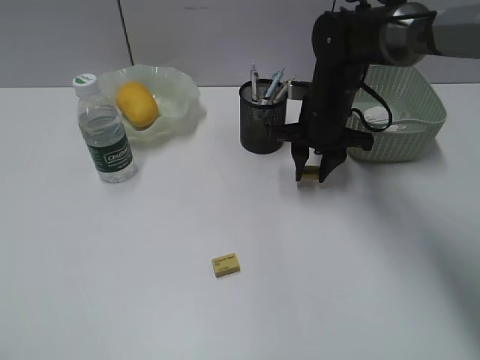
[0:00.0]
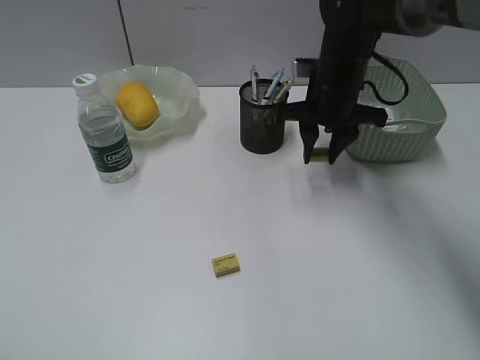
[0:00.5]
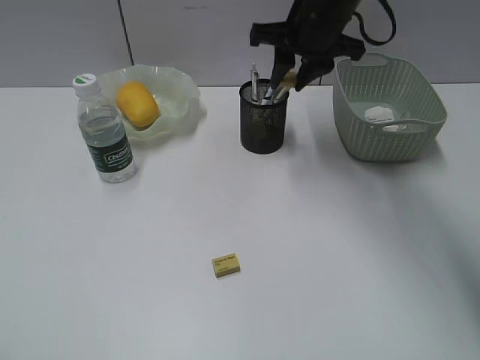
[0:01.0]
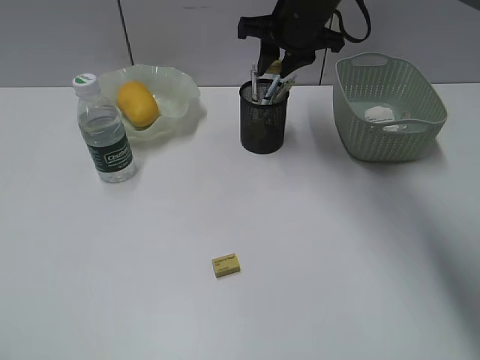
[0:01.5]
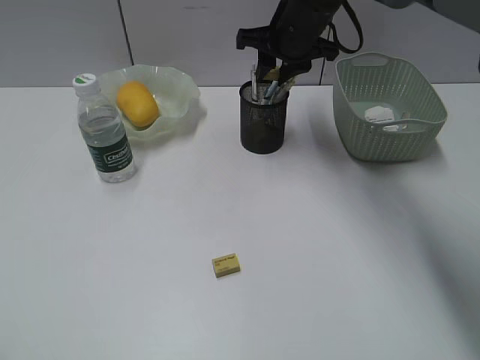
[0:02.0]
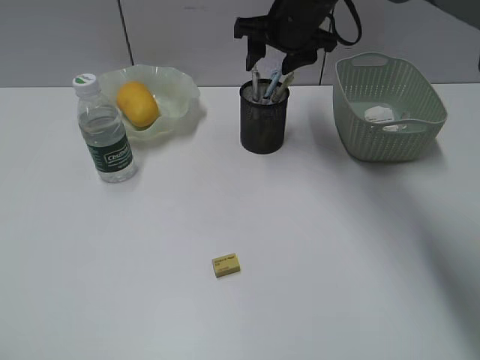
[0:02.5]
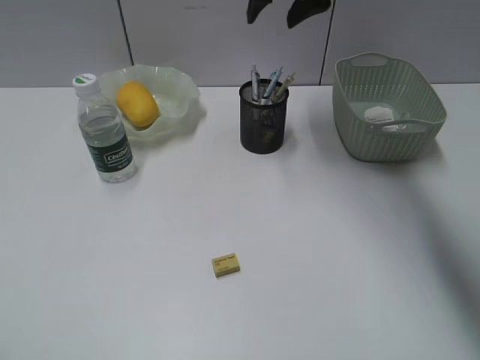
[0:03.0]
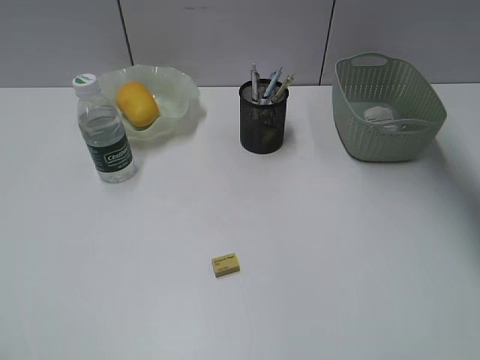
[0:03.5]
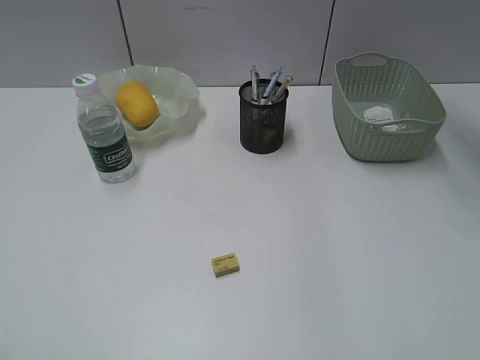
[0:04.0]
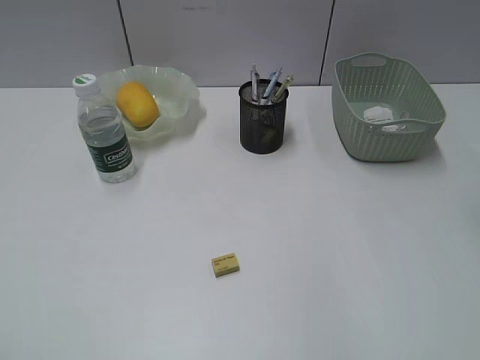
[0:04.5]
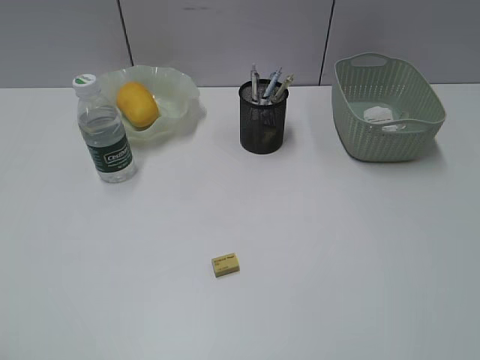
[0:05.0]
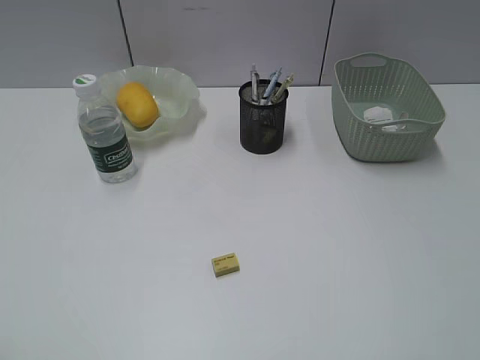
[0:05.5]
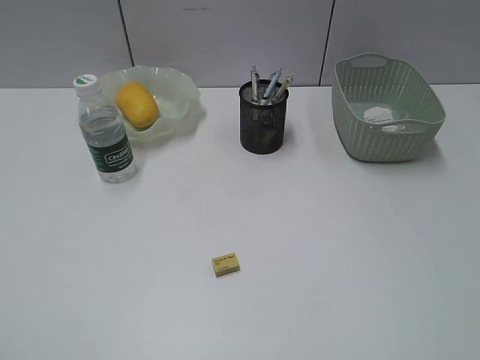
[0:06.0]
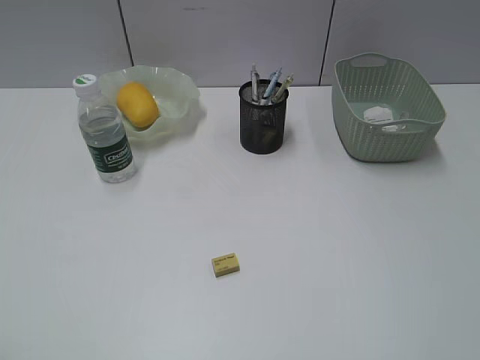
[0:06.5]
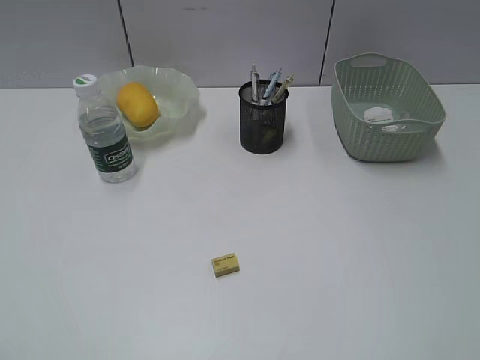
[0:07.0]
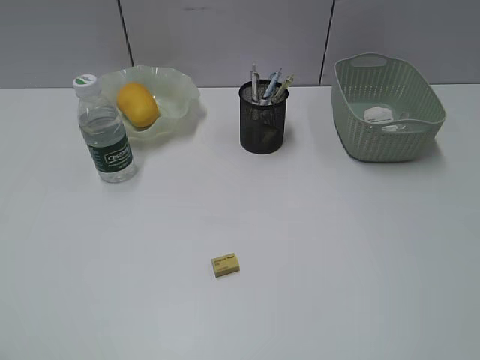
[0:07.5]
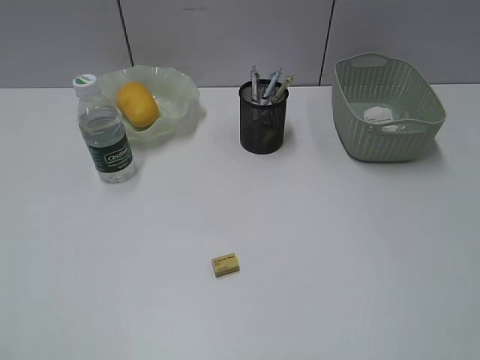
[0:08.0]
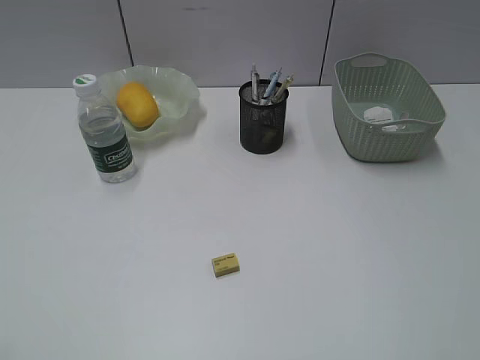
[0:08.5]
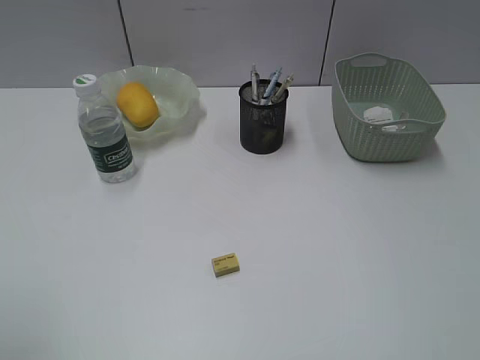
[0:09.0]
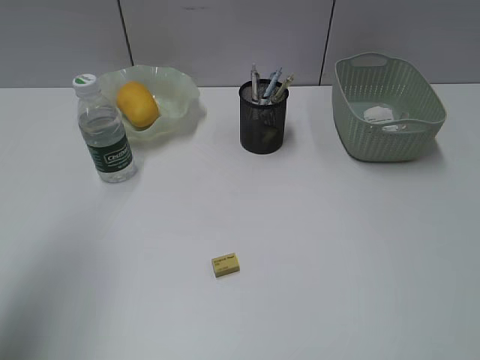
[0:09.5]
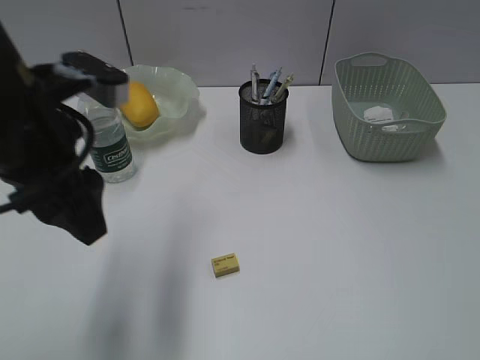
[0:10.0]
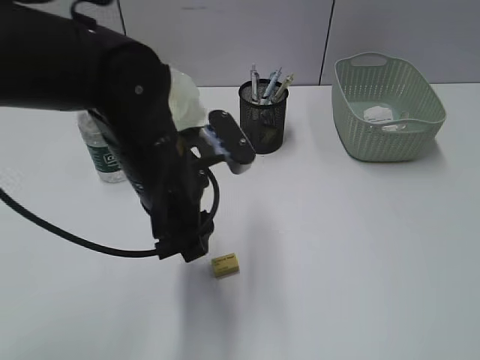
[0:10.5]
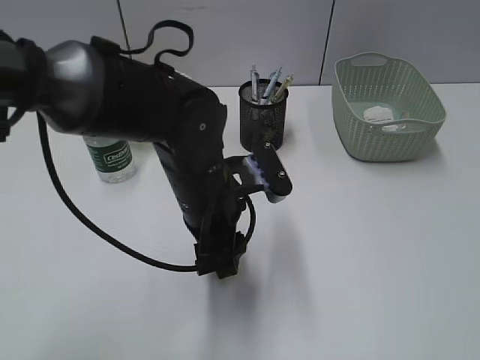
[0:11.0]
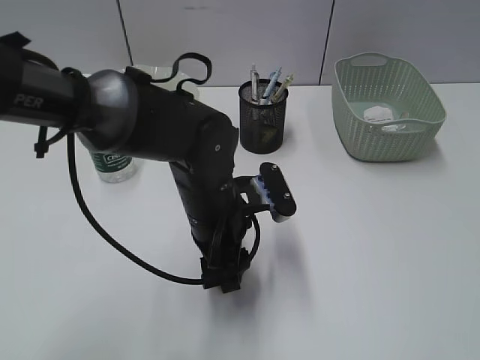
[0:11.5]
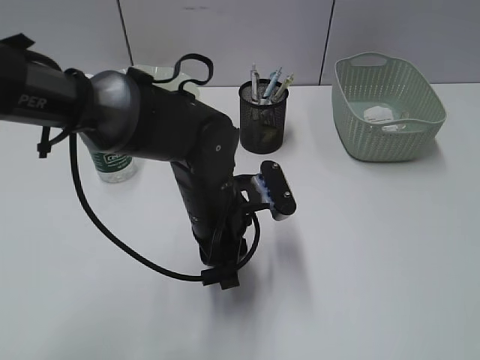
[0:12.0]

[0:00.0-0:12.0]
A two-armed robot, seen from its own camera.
Step, 0:00.0 to 0:02.0: Place the eraser in pen holder with right gripper.
0:00.0 to 0:02.0: The right gripper goes some 10 cm upward and forward.
0:02.0 to 0:04.0: The right gripper heads to the right and upward, covering about 25 cm.
0:04.0 to 0:06.0: The right gripper shifts roughly 50 cm backward.
0:08.0 to 0:10.0: The left gripper goes roughly 30 cm forward and to the right.
0:10.0 to 0:12.0: The left gripper moves downward and to the right, about 20 cm, and closes up.

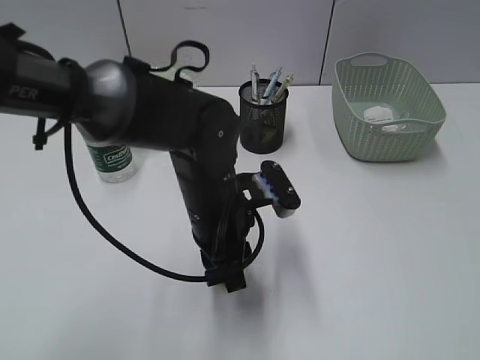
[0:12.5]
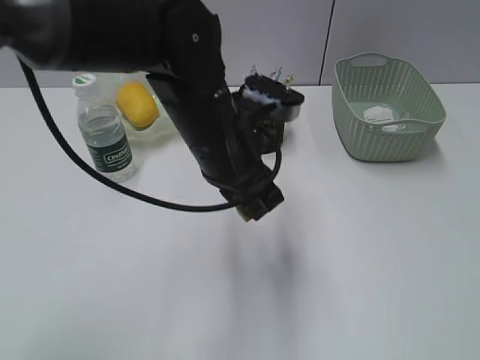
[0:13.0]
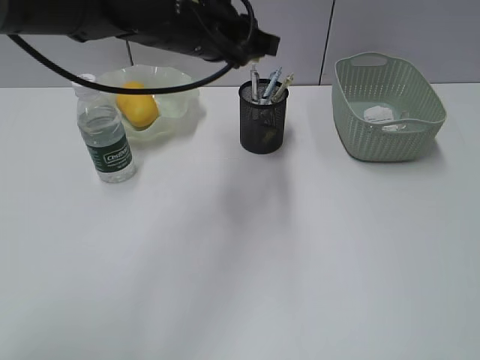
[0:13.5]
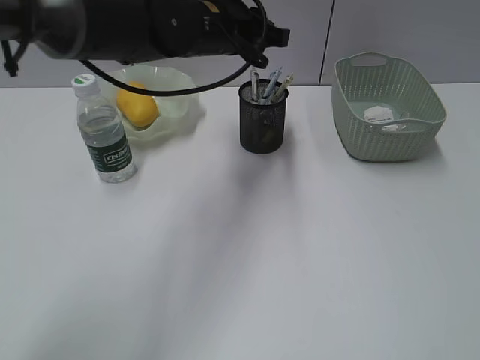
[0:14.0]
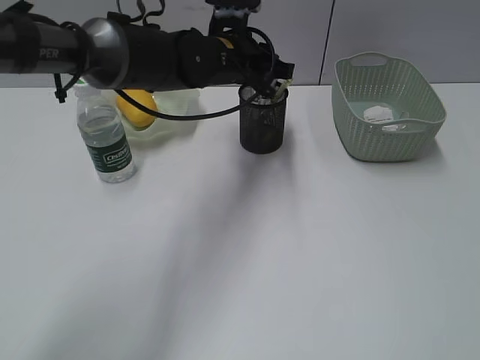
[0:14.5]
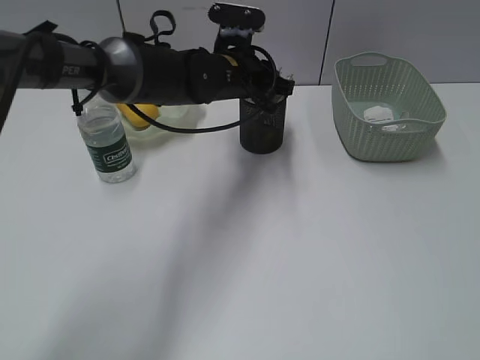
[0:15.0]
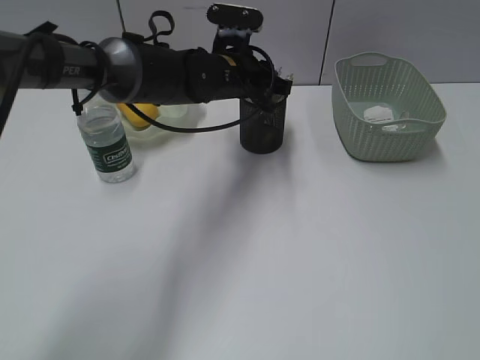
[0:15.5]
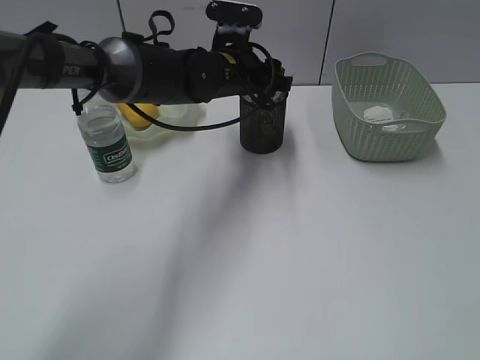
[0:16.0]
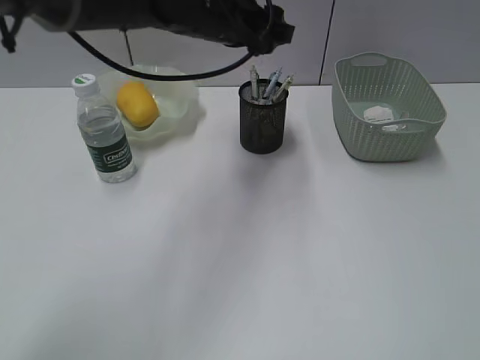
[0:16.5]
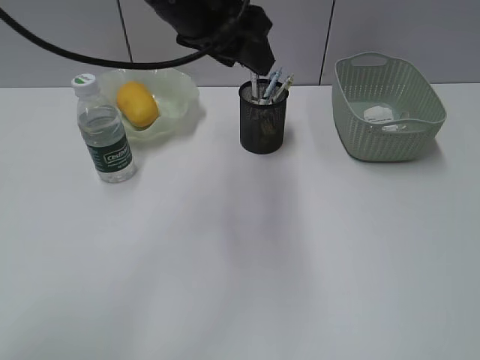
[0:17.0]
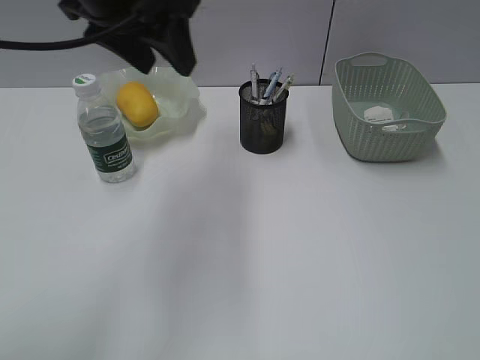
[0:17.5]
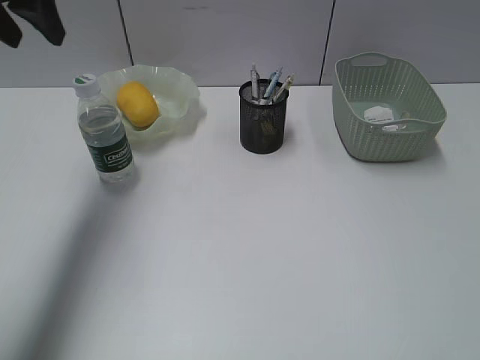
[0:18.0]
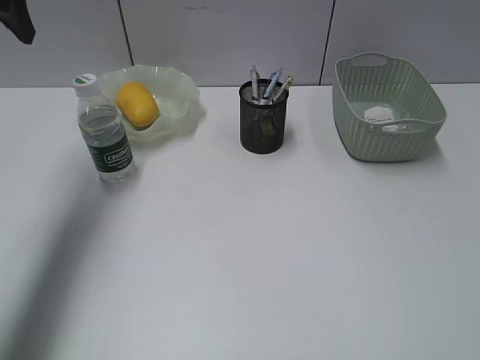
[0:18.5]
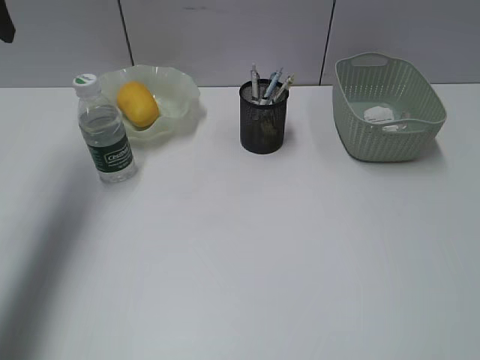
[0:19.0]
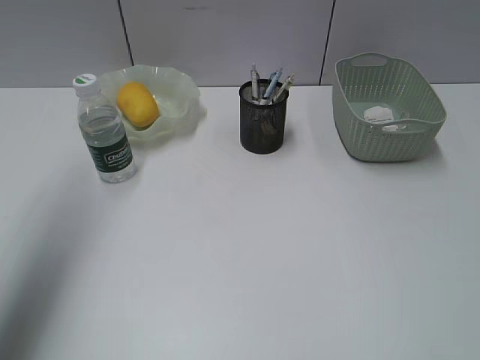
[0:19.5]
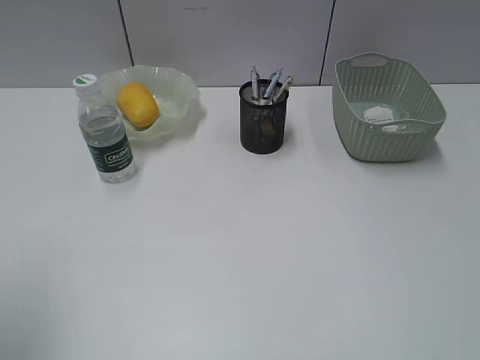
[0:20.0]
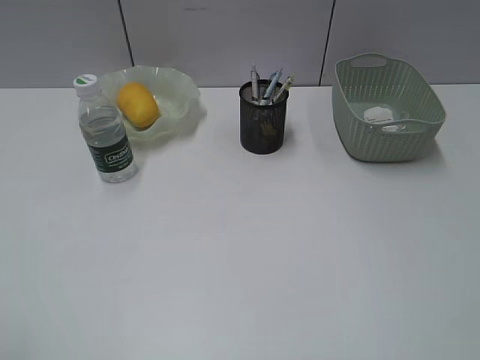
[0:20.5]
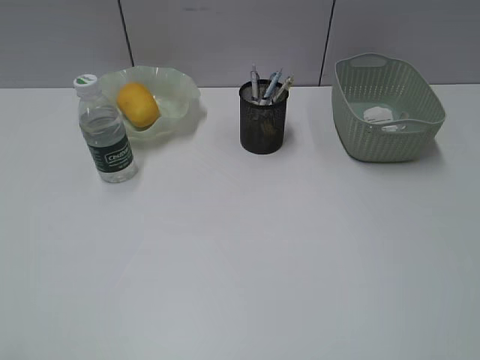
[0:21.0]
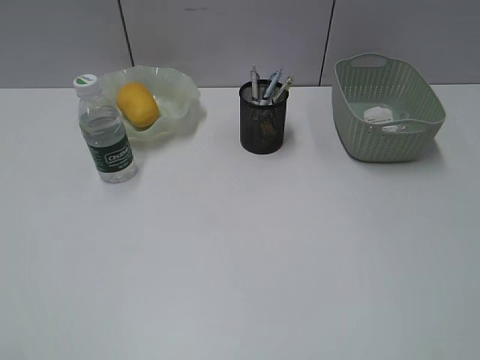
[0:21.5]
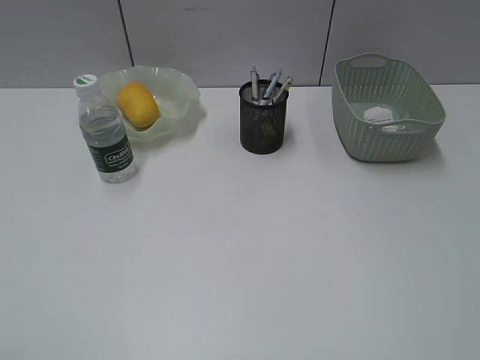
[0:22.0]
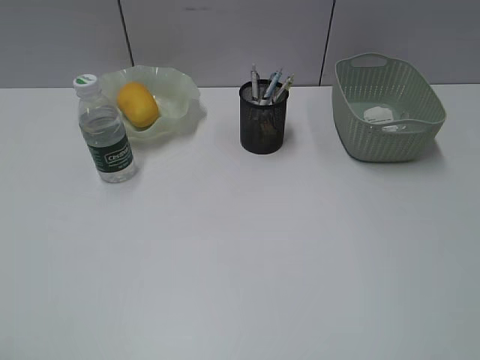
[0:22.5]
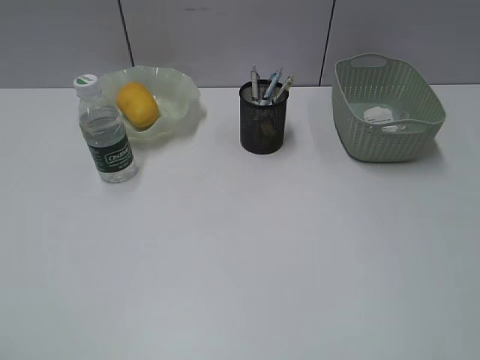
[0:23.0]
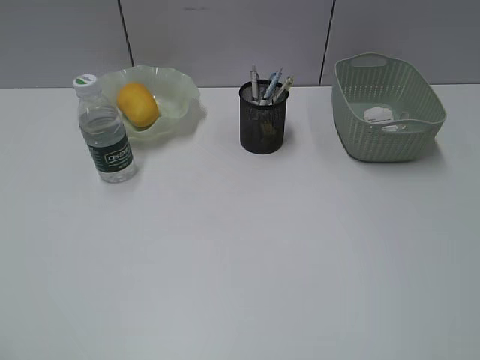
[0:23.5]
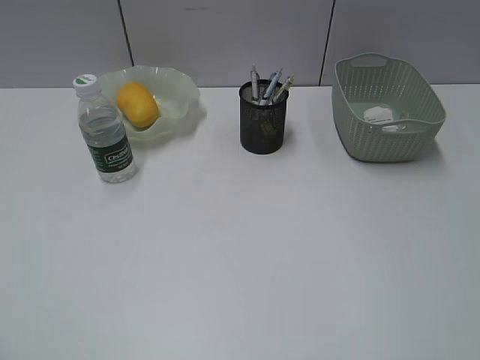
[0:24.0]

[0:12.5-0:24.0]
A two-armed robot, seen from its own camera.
Step, 0:12.5 to 0:16.0: Place the eraser in pen holder with left gripper.
0:12.5 to 0:14.5: The left gripper shifts approximately 20 cm forward and upward.
0:14.5 to 0:16.5: The left gripper is displaced upward by about 5 cm, and opens.
0:16.5 to 0:18.5: The left gripper travels to the left and upward by approximately 25 cm.
0:18.5 to 0:20.0: The left gripper is displaced backward by roughly 25 cm.
0:22.0 to 0:24.0: Both grippers stay put.

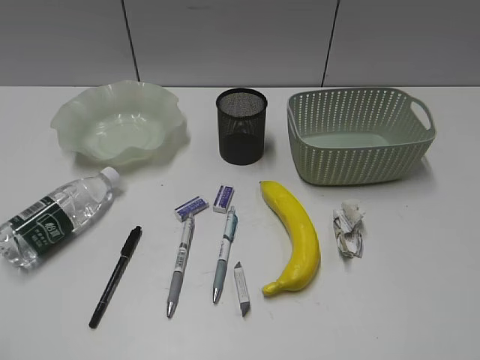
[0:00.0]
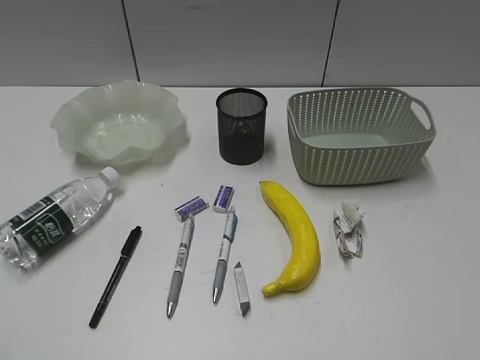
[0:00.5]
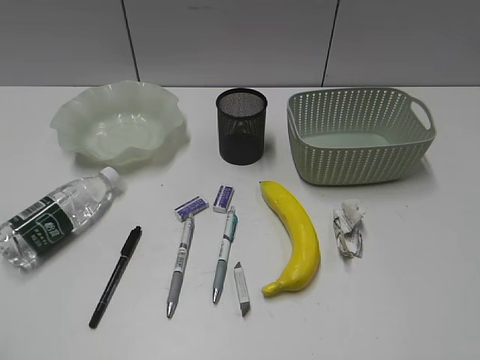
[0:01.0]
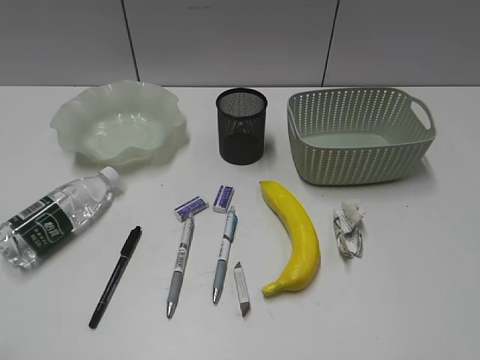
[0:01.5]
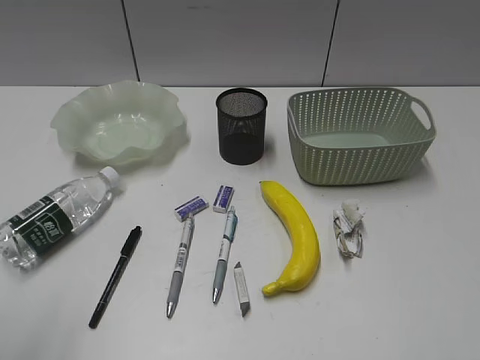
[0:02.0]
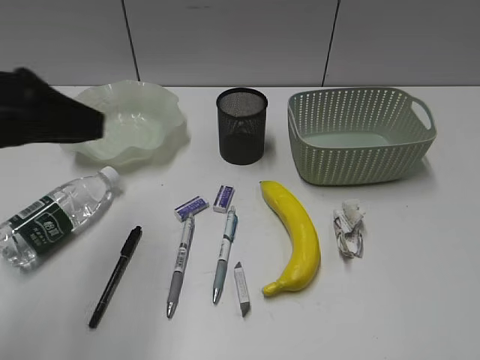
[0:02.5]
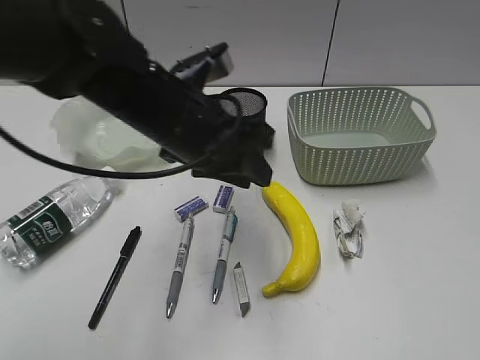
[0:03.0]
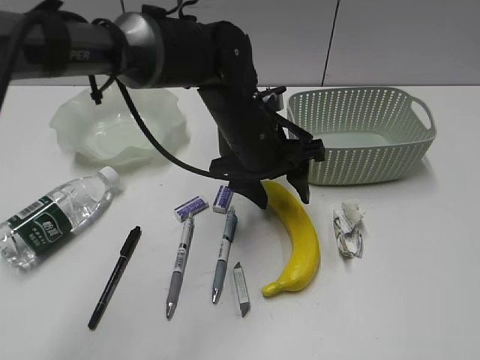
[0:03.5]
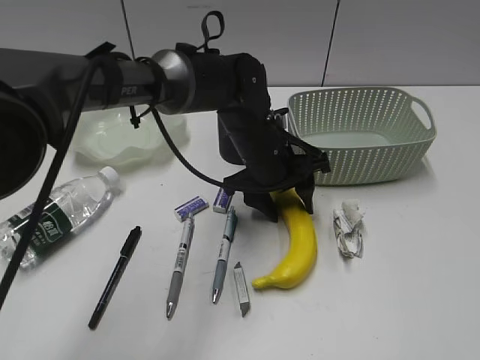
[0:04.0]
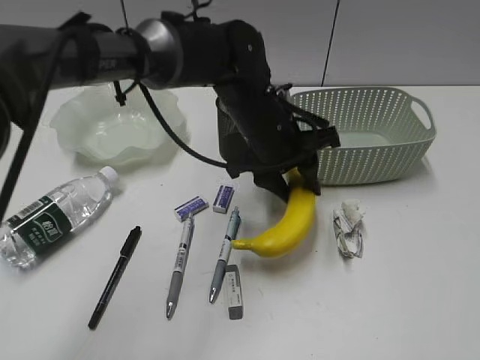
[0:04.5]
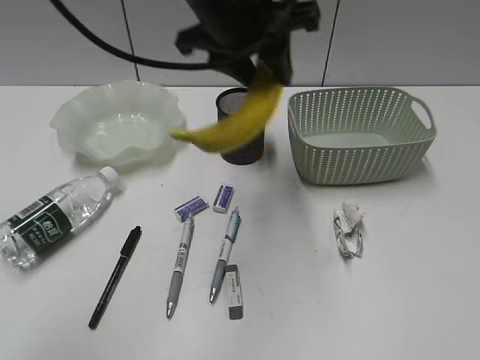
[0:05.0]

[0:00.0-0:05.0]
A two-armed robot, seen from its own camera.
Step, 0:01.5 to 0:04.0: Grasp the banana with left gripper.
0:02.5 to 0:05.0: The left gripper shifts some 25 cm to the right and forward.
